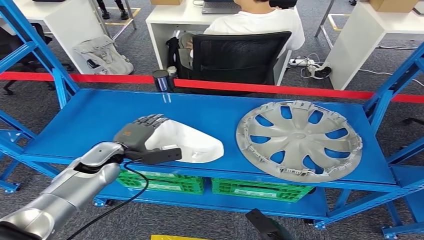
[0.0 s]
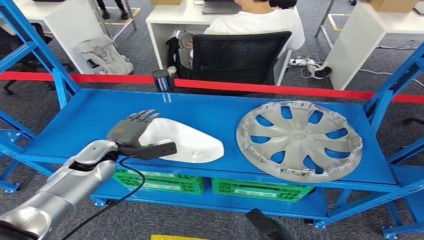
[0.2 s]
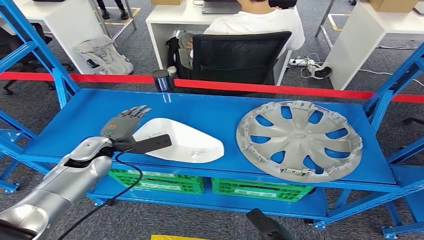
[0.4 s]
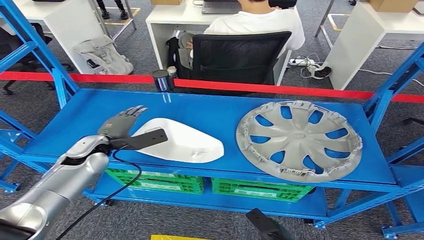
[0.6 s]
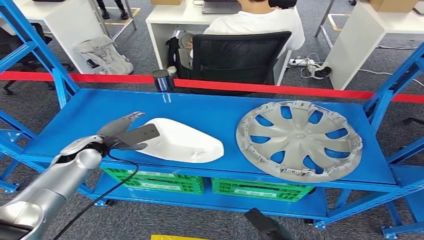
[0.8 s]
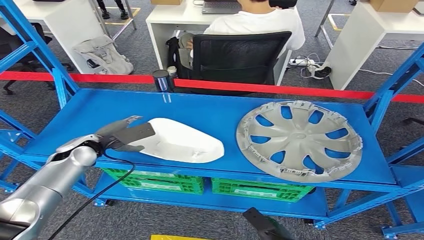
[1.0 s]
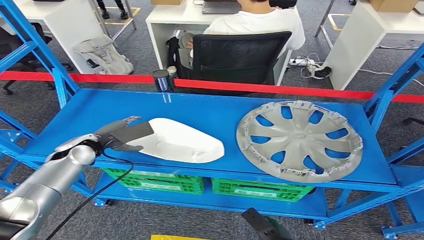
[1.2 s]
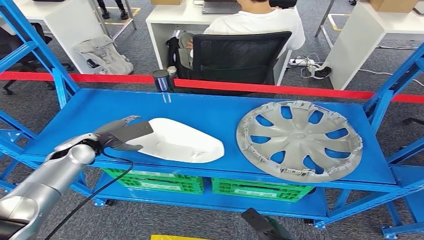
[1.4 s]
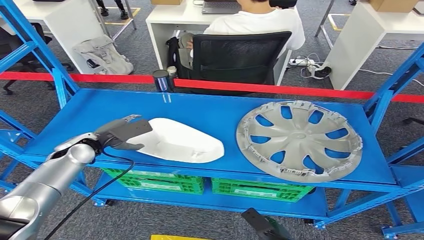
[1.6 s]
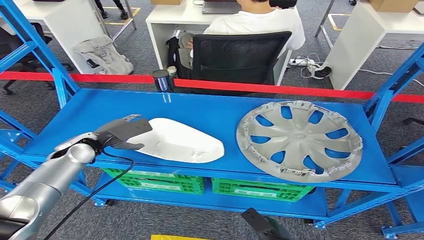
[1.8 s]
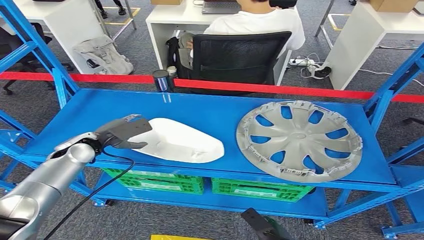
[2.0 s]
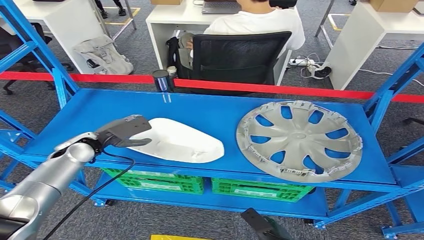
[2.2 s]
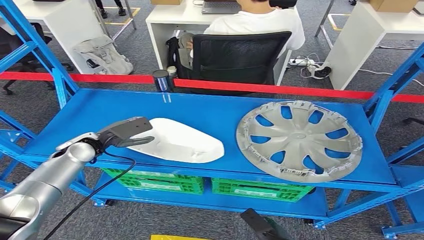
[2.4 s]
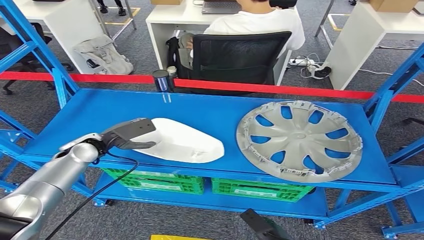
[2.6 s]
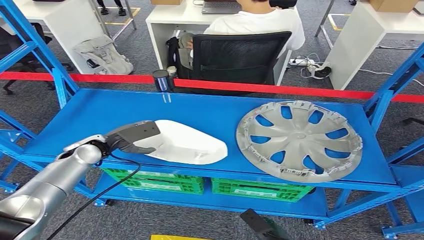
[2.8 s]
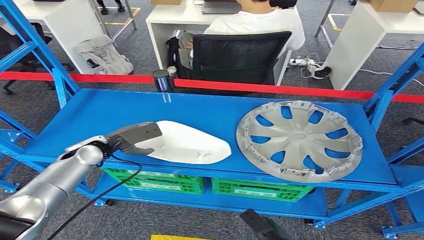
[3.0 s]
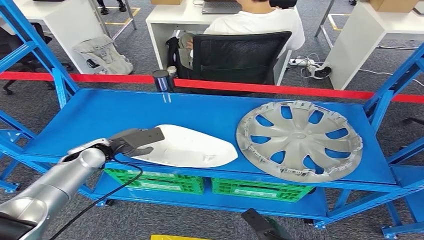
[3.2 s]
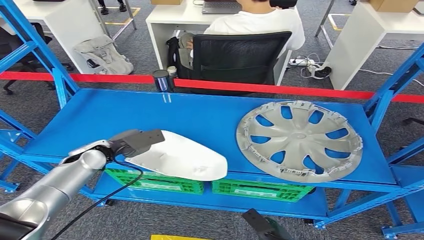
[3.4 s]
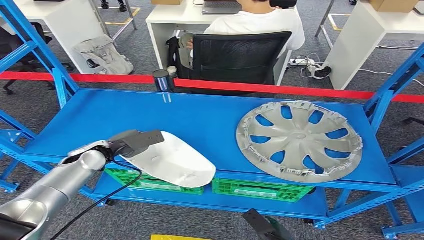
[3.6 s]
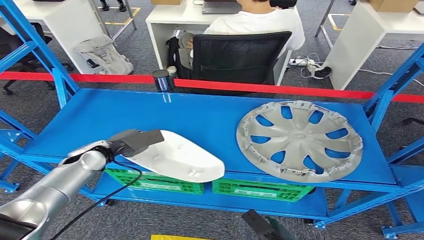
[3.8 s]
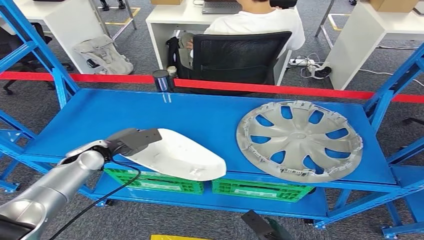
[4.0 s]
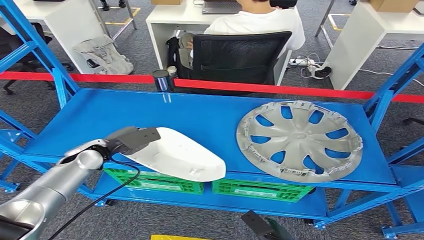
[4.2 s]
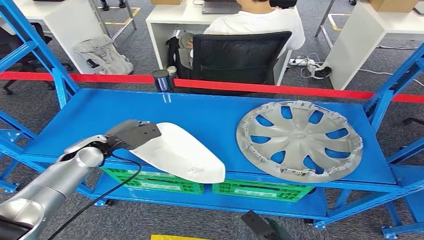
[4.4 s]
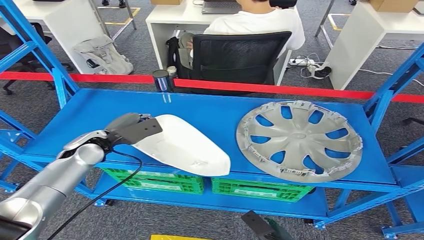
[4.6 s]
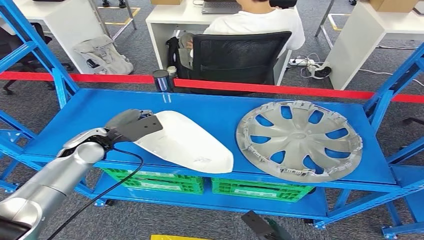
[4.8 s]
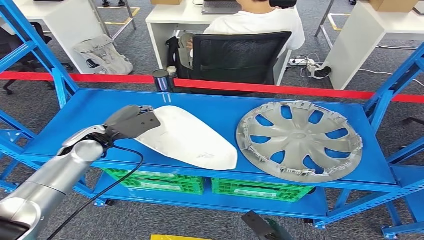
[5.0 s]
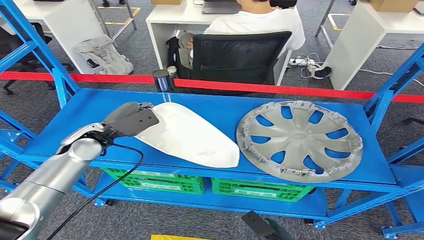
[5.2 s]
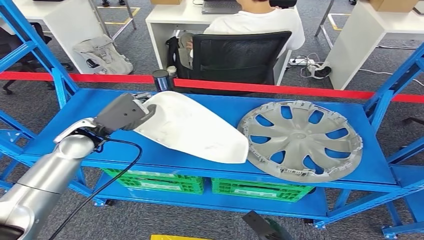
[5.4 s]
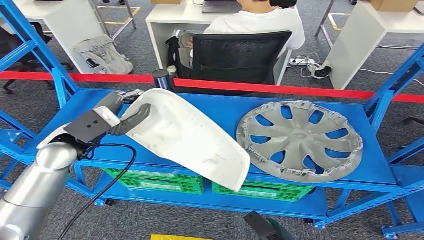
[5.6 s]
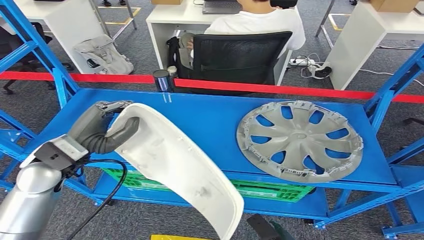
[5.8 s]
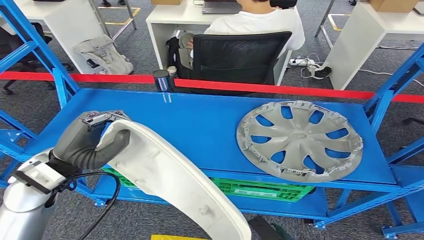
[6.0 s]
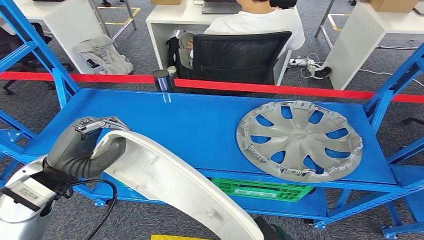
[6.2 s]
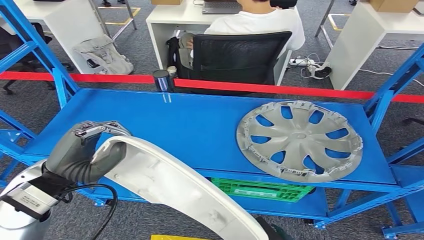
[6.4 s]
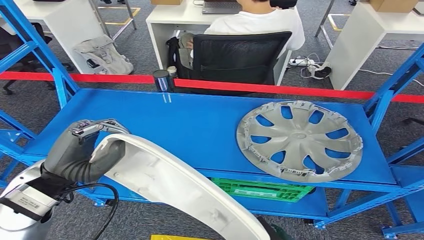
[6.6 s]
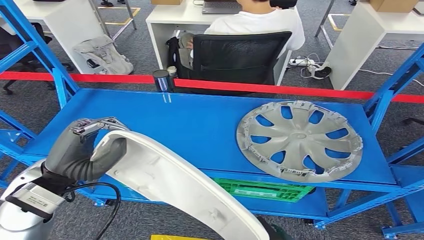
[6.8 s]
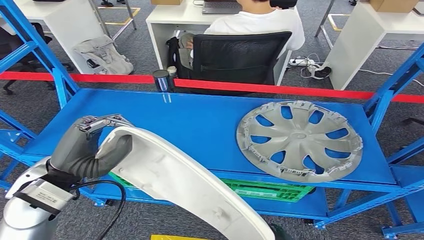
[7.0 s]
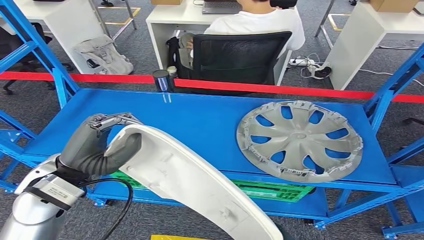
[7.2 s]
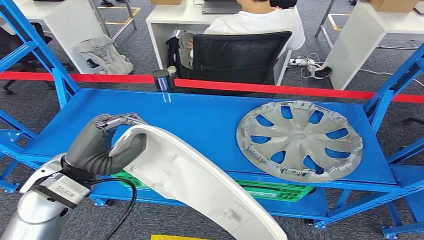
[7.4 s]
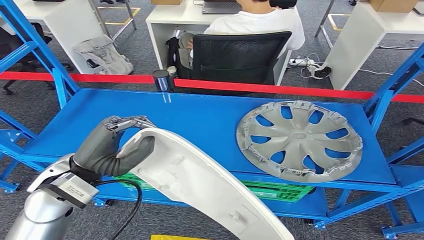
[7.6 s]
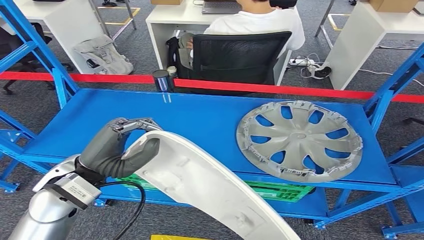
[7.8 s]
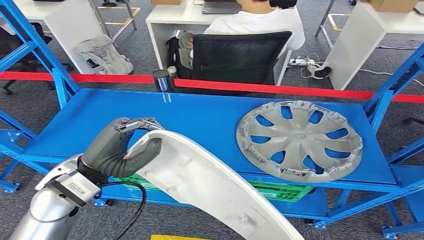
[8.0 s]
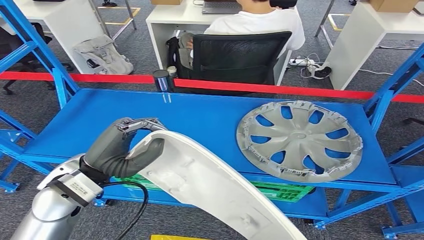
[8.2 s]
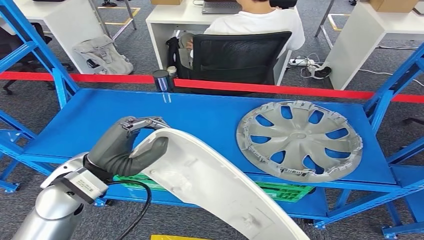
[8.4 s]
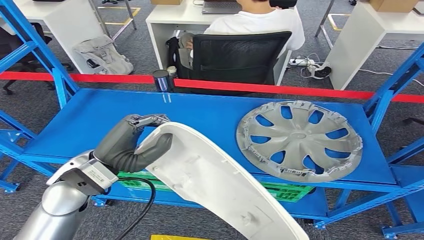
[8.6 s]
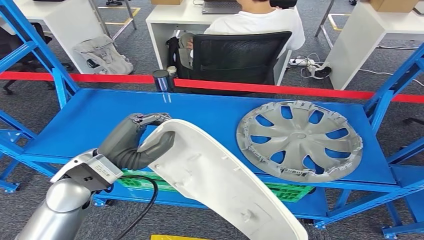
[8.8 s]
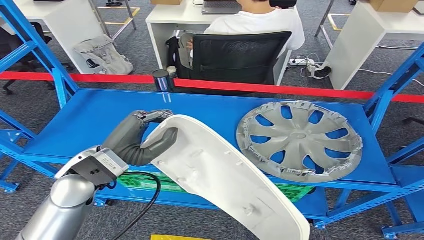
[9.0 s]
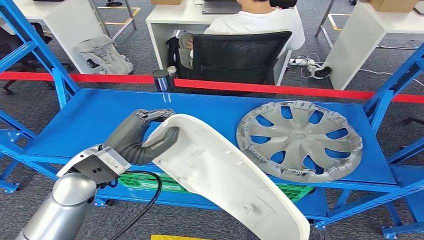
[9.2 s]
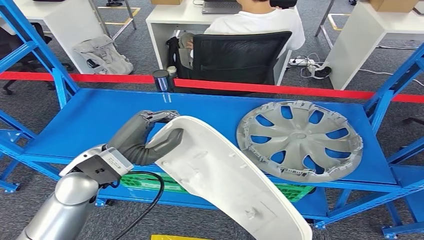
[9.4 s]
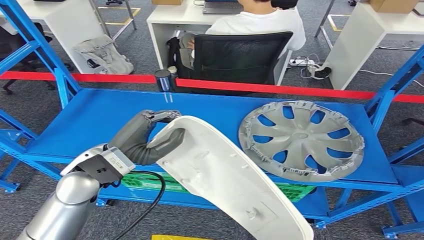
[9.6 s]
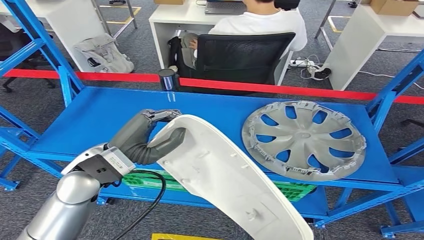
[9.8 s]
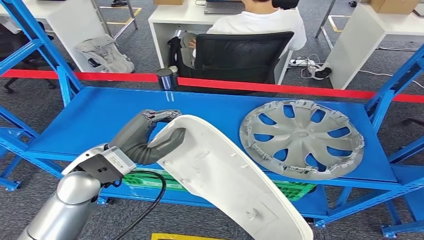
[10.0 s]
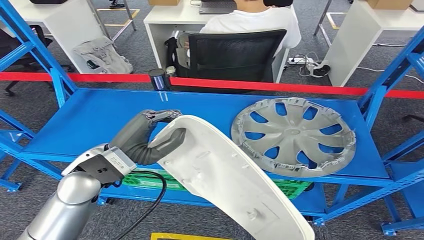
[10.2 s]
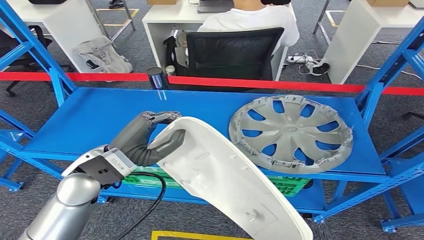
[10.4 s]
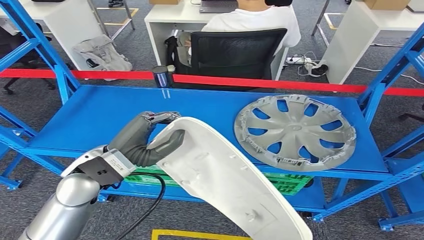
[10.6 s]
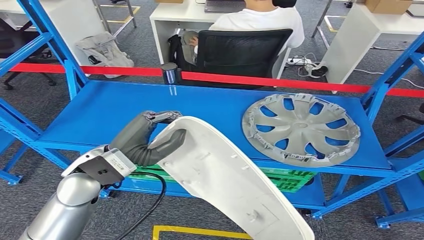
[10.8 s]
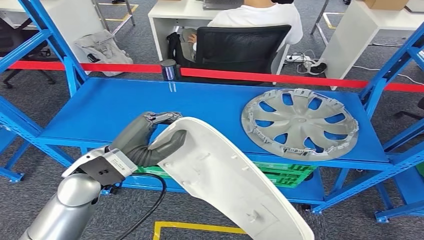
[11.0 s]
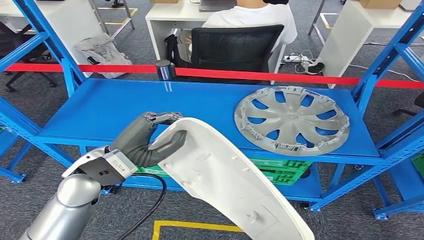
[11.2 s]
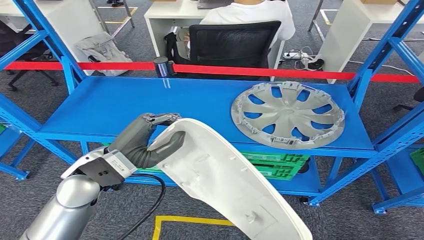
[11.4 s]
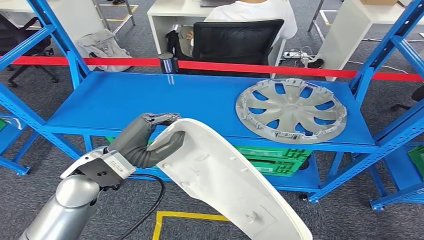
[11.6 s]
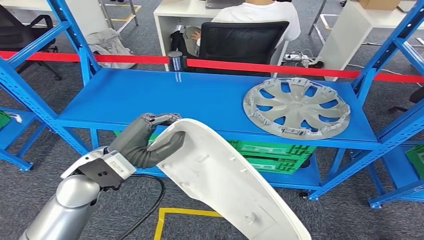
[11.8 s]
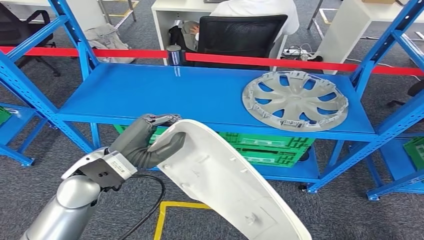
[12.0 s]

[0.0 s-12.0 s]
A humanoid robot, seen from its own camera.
Step, 0.0 to 6.0 s: Pick up the small component from the shelf.
0.0 to 1.6 s: The left hand ends up about 5 cm from where it was.
1.6 to 4.4 s: The hands stay close to where they were, moving slightly.
4.4 to 6.0 s: The left hand travels upward and backward by approximately 15 cm.
6.0 to 7.6 s: There are only small adjustments of the hands.
7.6 to 9.0 s: The hands stay close to where they were, moving slightly.

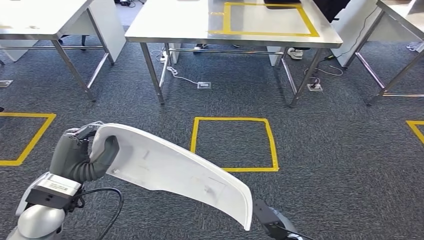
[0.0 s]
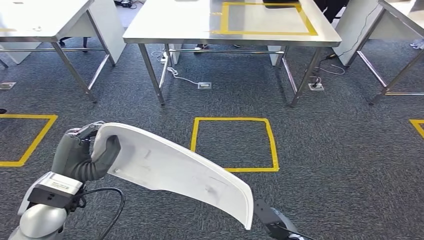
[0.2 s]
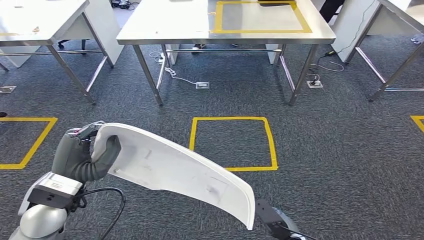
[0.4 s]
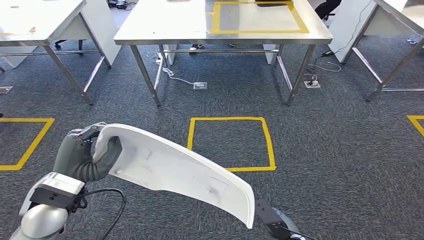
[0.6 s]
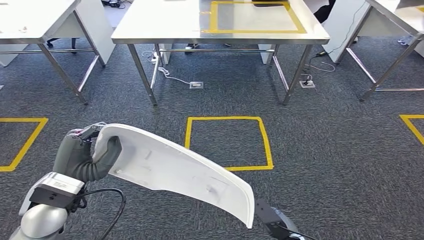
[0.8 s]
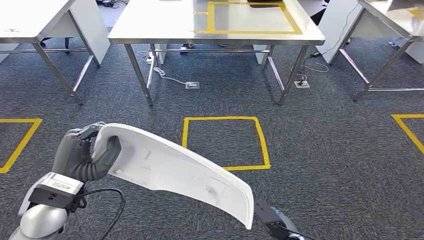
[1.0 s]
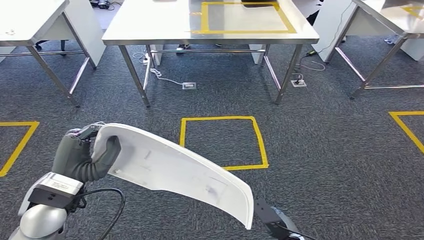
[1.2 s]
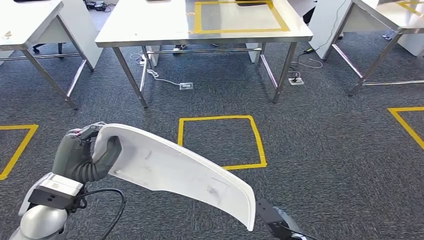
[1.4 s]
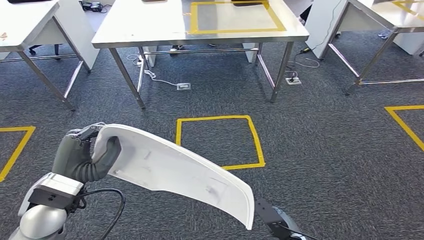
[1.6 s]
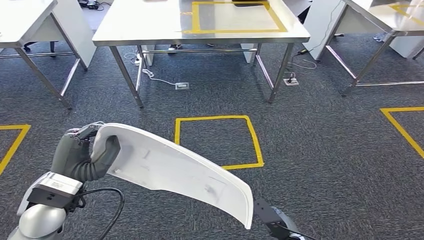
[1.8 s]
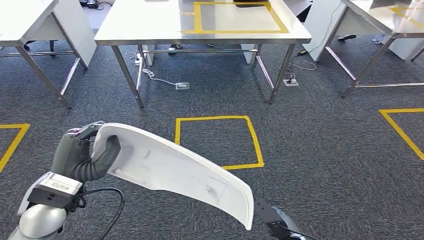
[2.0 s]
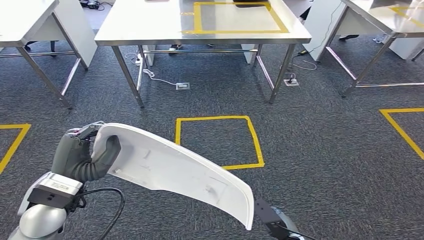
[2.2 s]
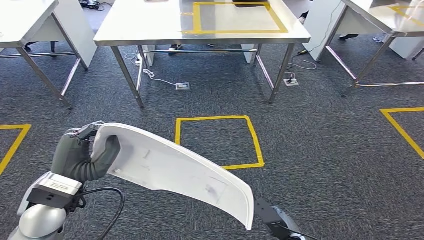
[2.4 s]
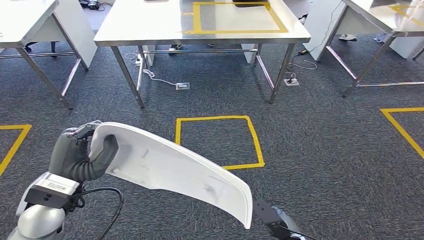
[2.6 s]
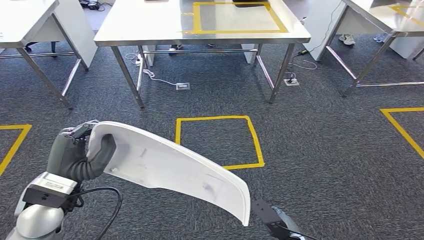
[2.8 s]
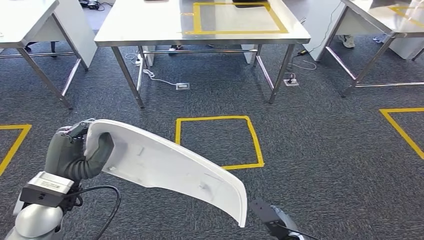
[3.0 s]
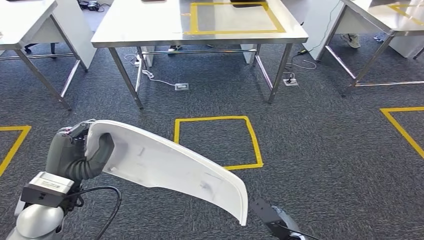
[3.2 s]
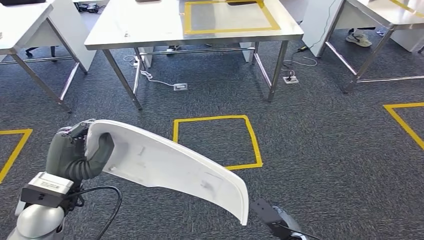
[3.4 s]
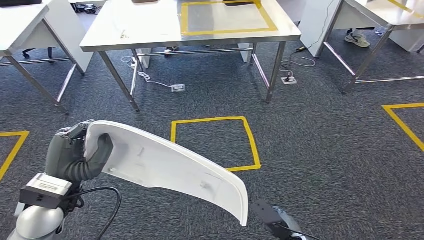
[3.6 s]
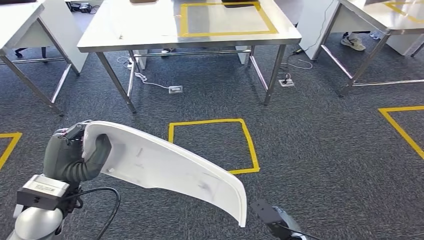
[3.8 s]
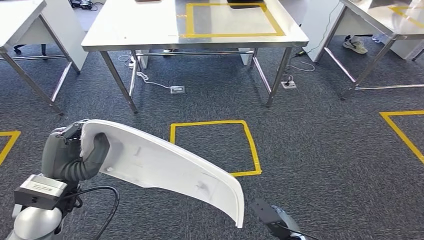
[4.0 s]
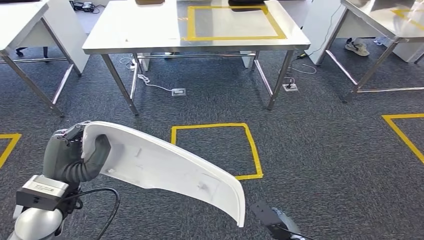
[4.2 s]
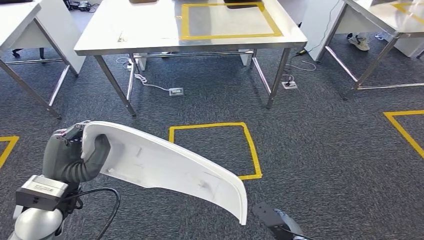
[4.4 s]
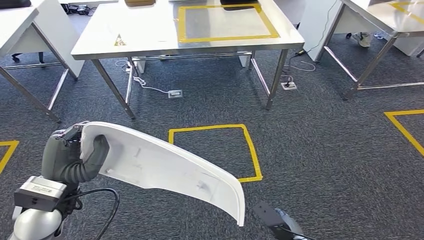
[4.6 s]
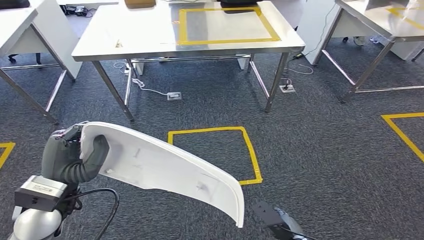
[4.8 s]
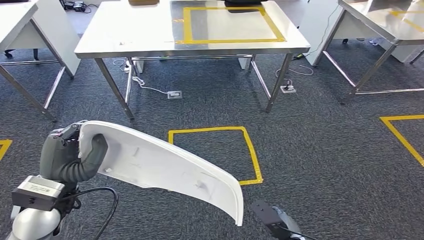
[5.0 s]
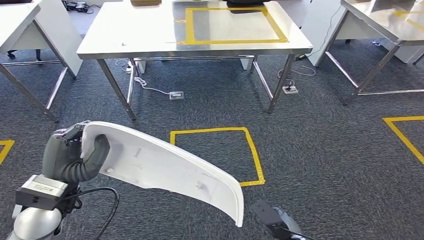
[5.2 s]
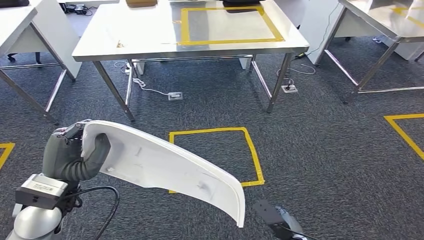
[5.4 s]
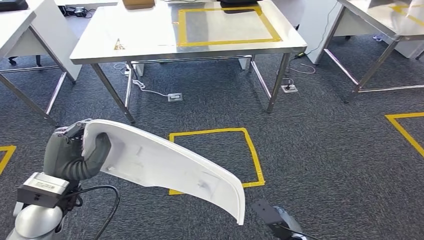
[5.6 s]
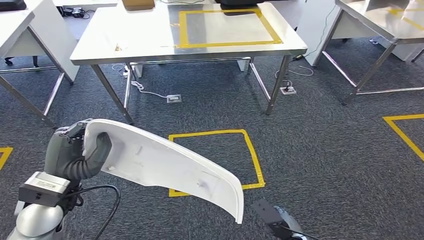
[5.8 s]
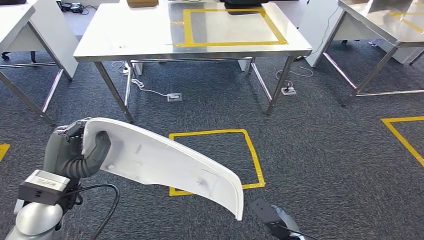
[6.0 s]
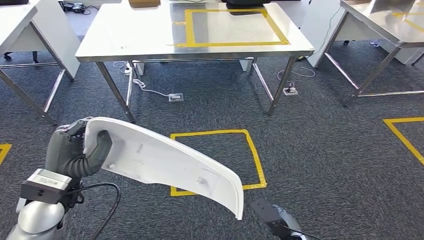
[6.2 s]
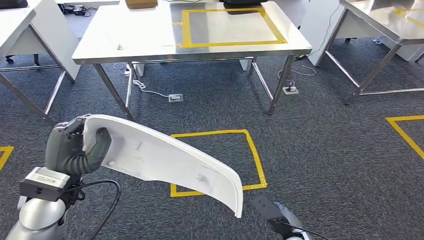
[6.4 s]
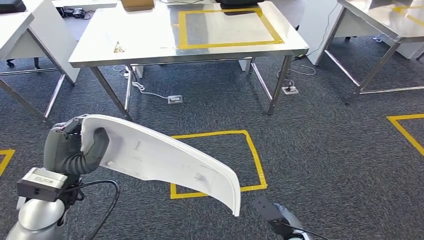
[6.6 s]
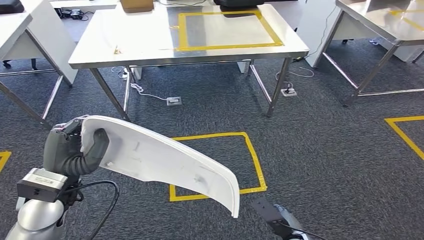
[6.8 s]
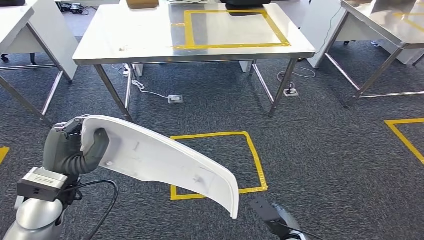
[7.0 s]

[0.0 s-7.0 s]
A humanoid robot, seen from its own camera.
1.4 to 2.8 s: Neither hand changes place.
4.2 to 5.6 s: The two hands keep their place.
5.6 to 7.0 s: The hands move only a little.
